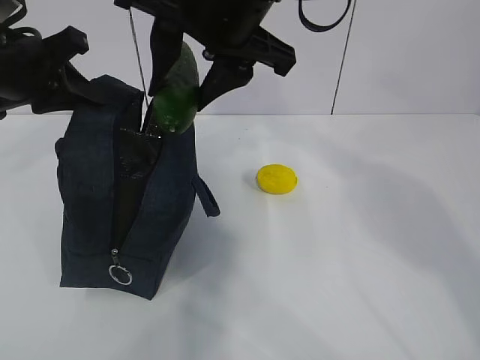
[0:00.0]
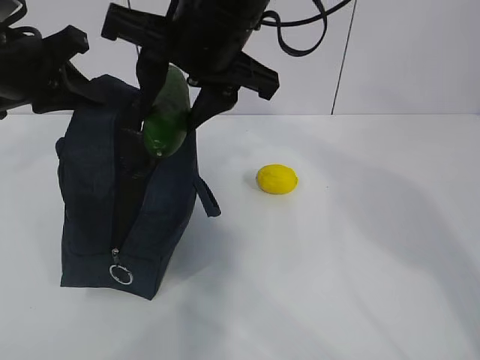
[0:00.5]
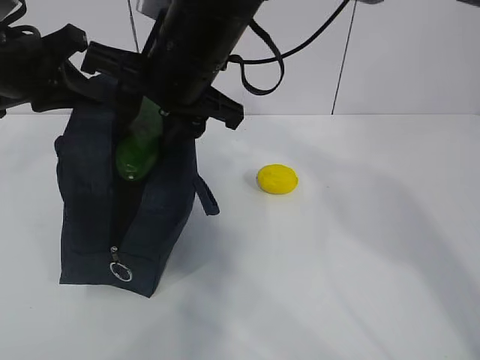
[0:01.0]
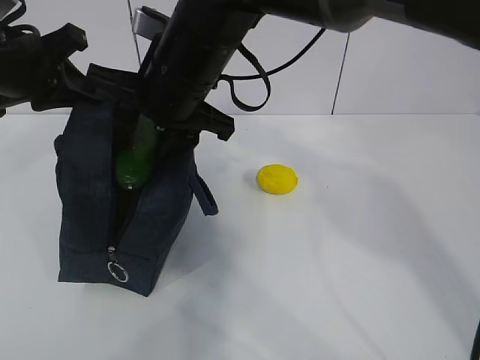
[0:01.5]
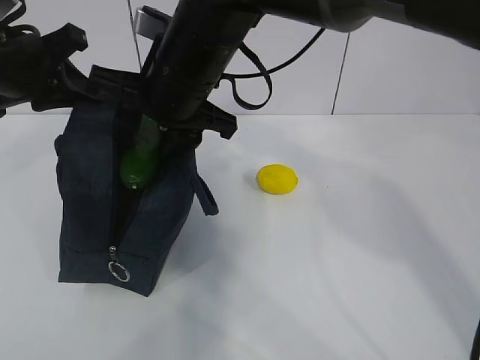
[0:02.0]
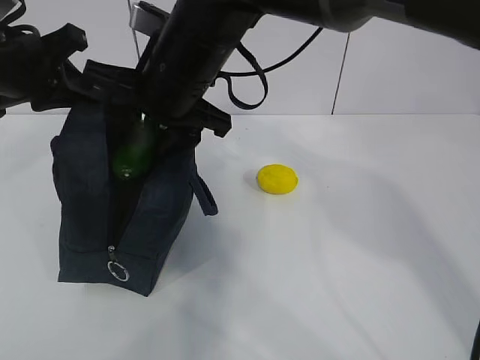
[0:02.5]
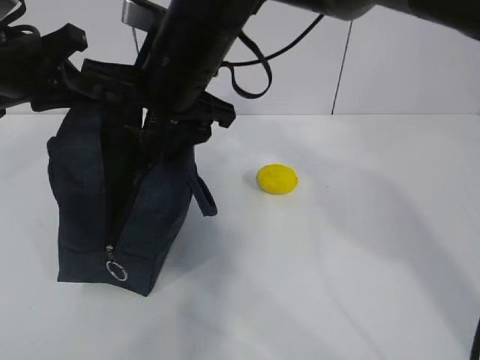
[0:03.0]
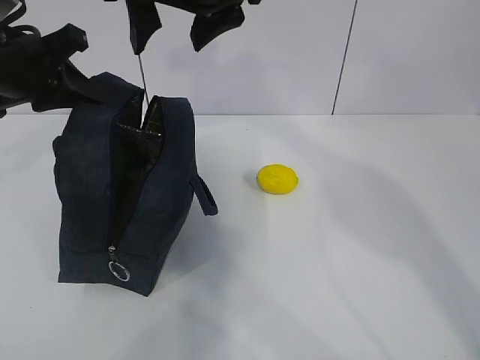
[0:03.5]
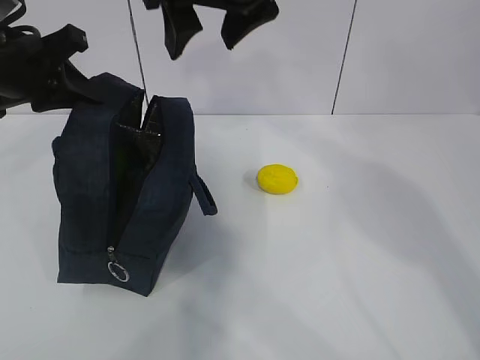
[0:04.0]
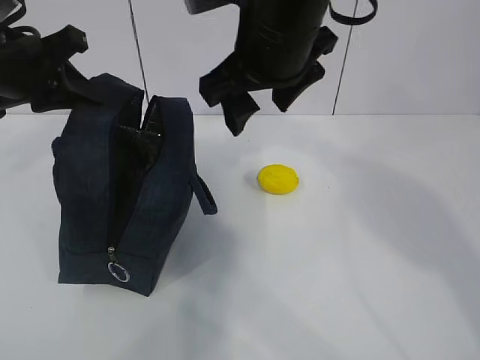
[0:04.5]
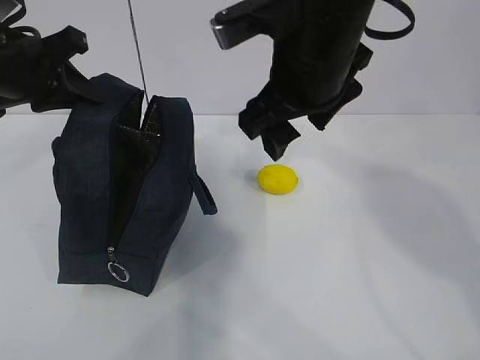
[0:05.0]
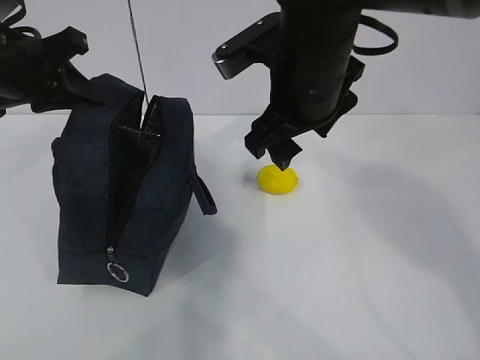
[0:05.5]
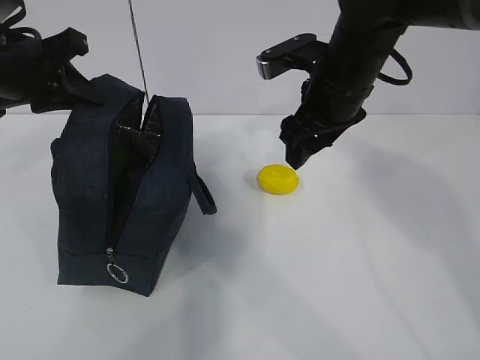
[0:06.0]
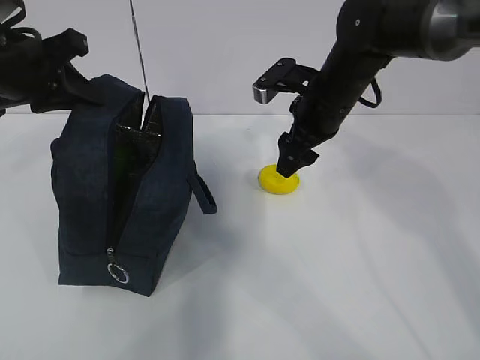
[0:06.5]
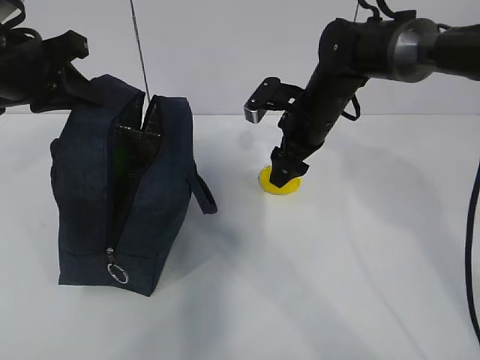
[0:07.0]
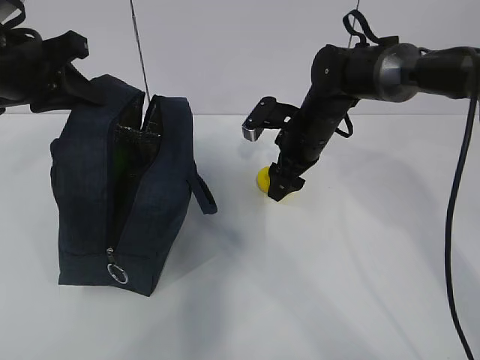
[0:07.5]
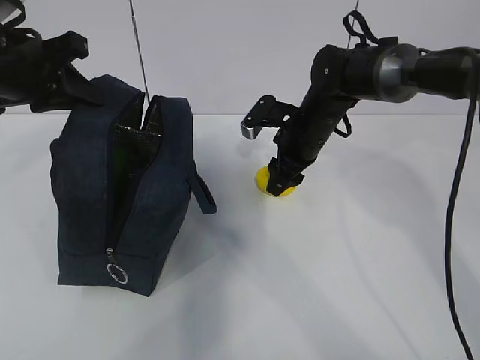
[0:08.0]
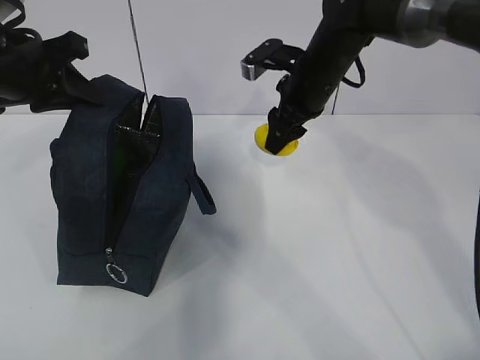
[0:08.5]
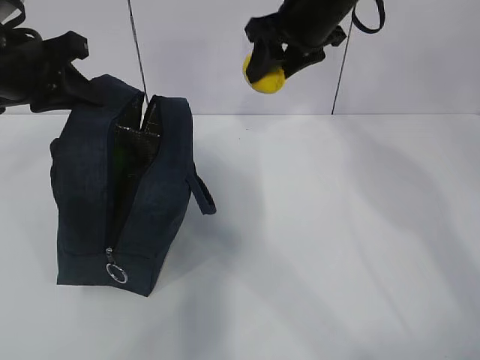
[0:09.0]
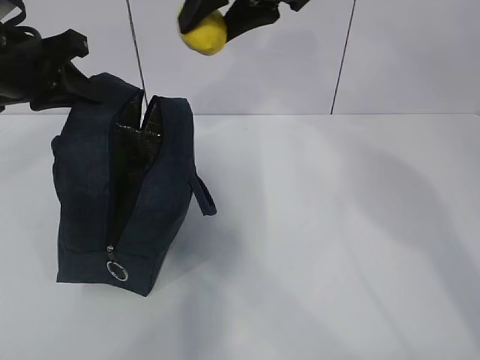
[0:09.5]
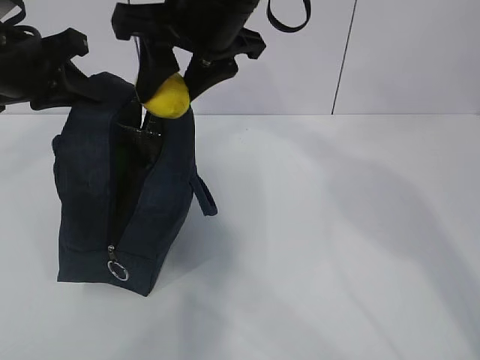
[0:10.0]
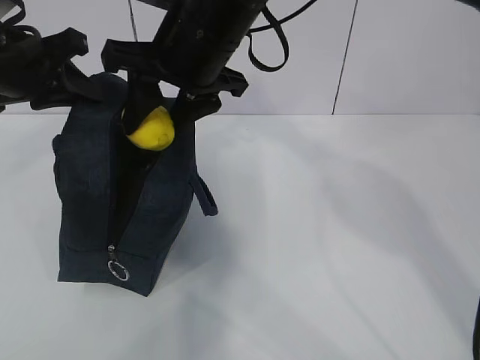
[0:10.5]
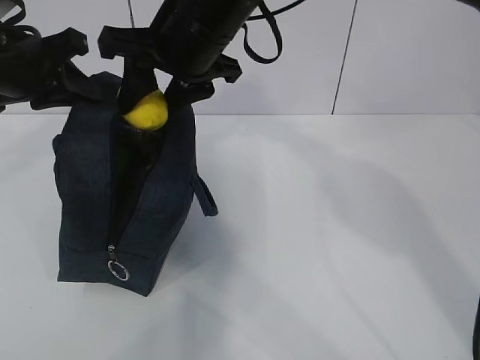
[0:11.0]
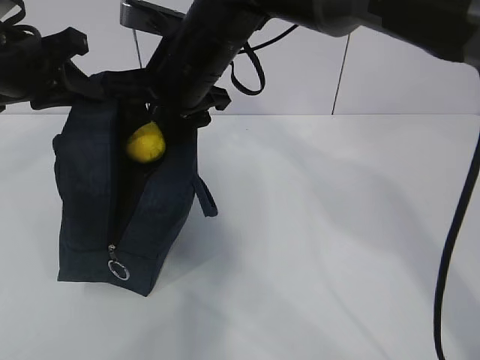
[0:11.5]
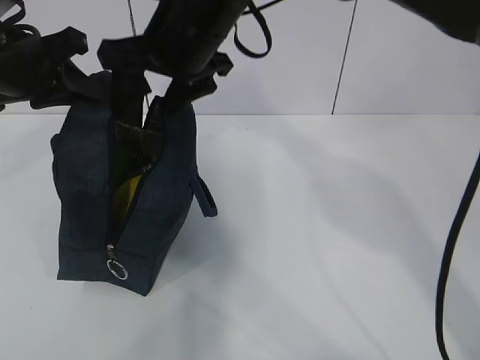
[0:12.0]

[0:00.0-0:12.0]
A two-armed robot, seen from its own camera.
Step, 0:05.0 to 0:08.0: Grab the lunch bag with your right hand.
Step, 0:08.5 to 0:10.0: Move the lunch bag to the right.
0:00.0 to 0:02.0: The right gripper shifts some 10 cm downward.
0:02.0 to 0:04.0: The right gripper is displaced upward and to the right by roughly 10 cm, and opens up.
0:04.0 to 0:06.0: The right gripper moves downward and to the right, approximately 15 cm.
0:06.0 to 0:08.0: The right gripper travels downward and forward by roughly 15 cm.
0:08.0 to 0:10.0: The right gripper moves upward, to the left and backward, about 25 cm.

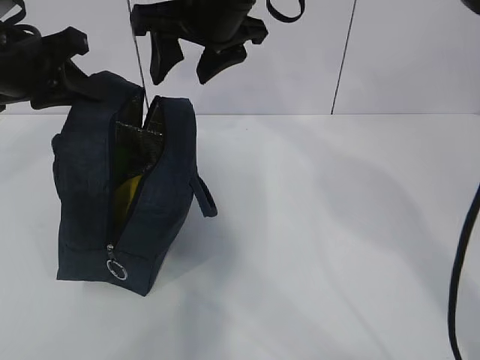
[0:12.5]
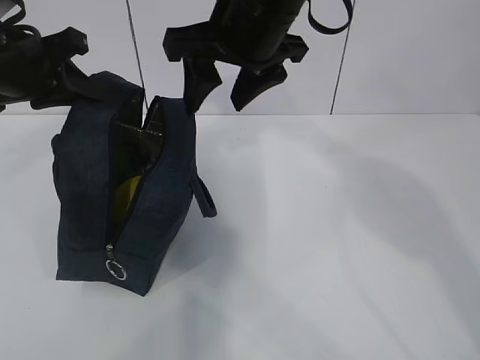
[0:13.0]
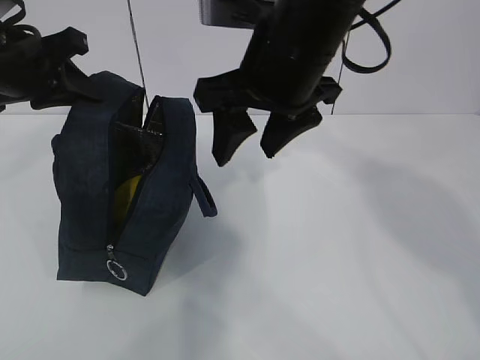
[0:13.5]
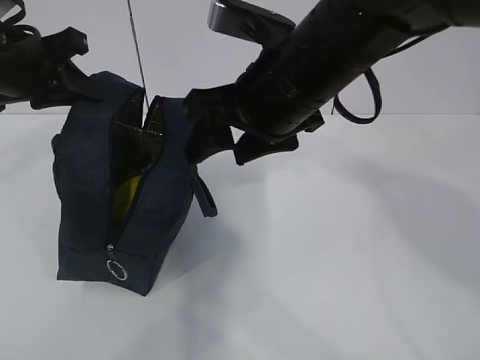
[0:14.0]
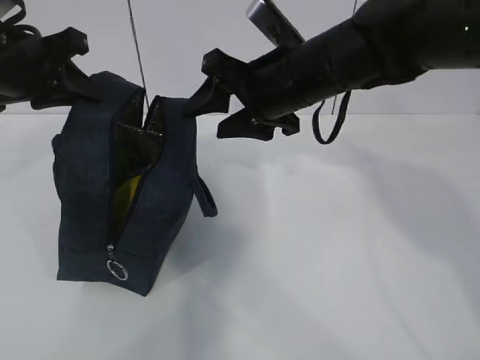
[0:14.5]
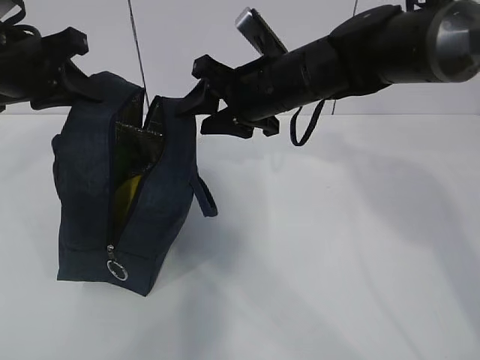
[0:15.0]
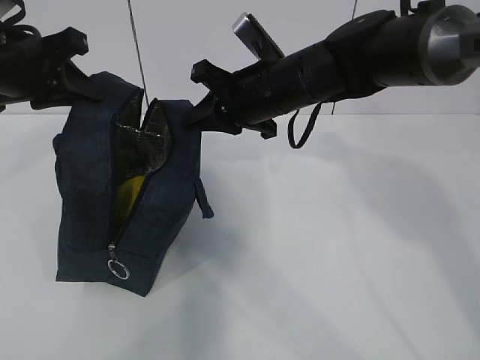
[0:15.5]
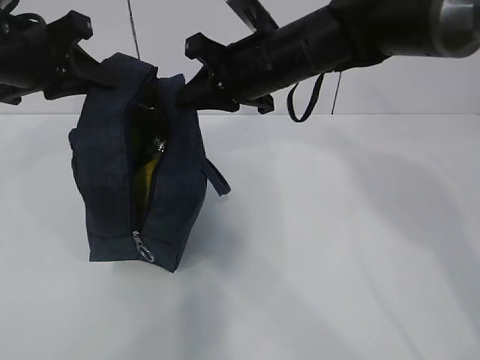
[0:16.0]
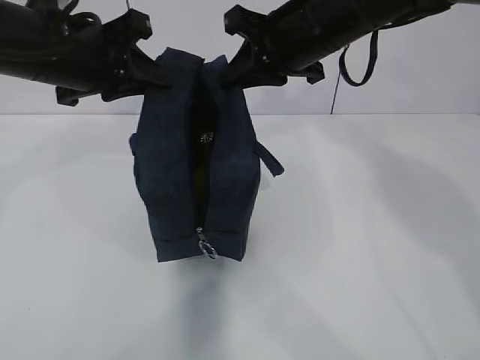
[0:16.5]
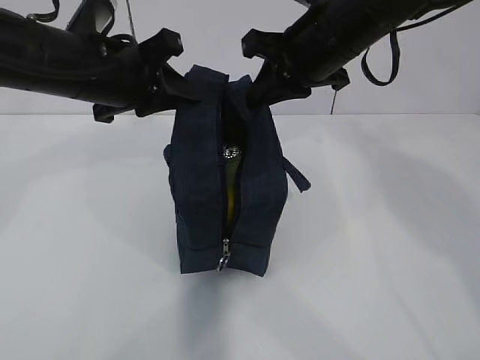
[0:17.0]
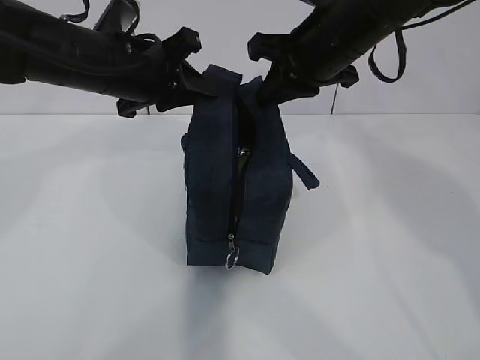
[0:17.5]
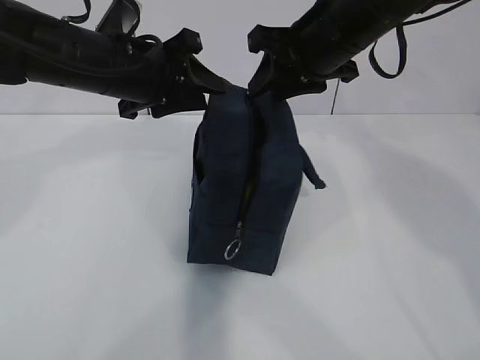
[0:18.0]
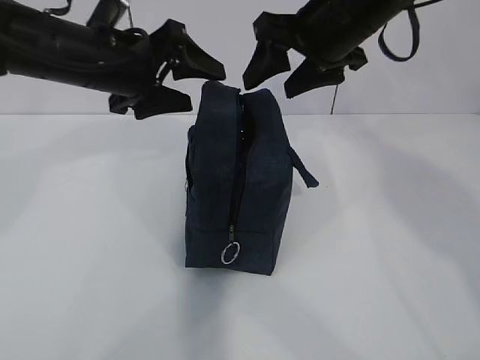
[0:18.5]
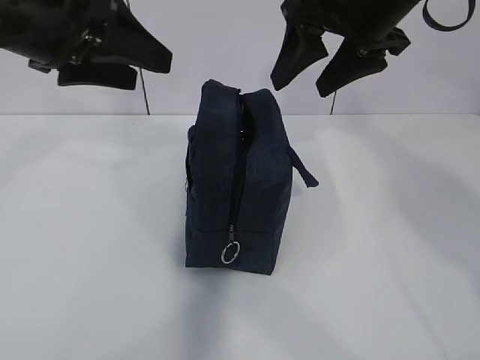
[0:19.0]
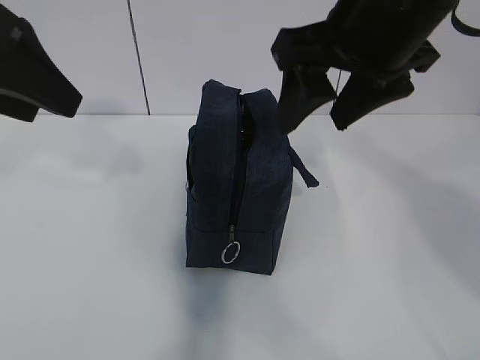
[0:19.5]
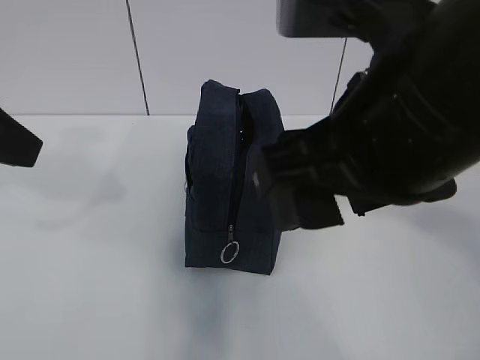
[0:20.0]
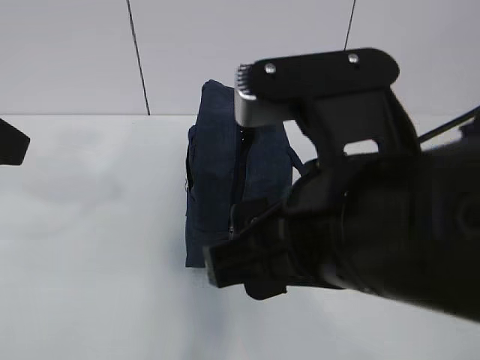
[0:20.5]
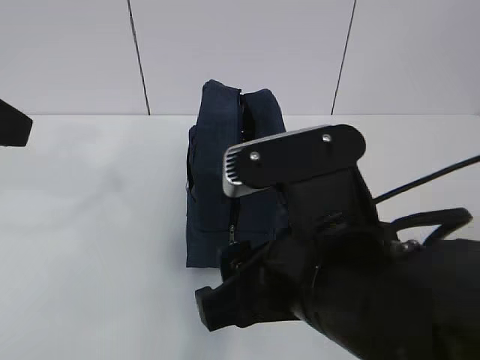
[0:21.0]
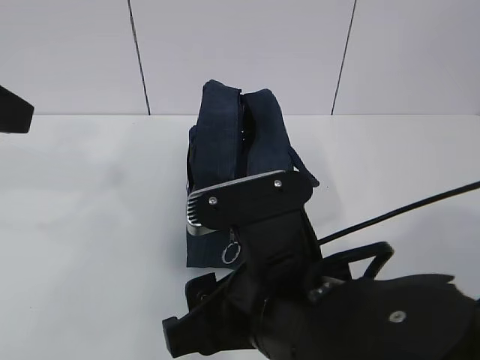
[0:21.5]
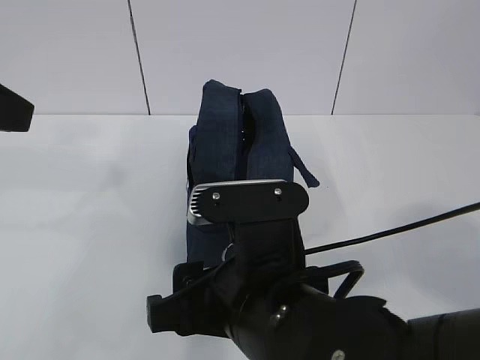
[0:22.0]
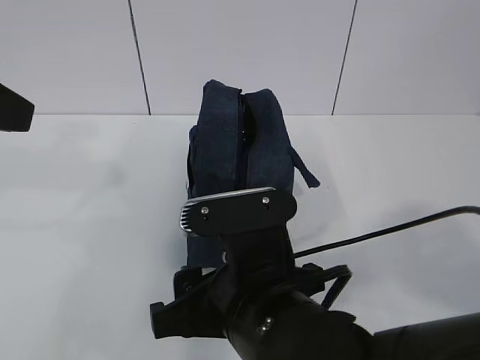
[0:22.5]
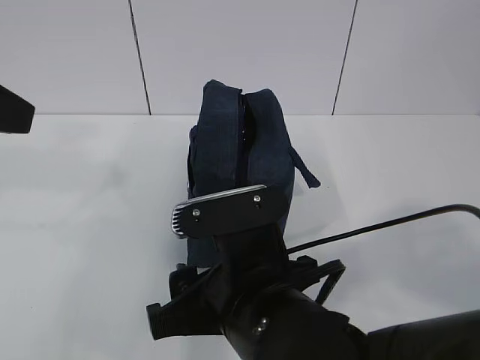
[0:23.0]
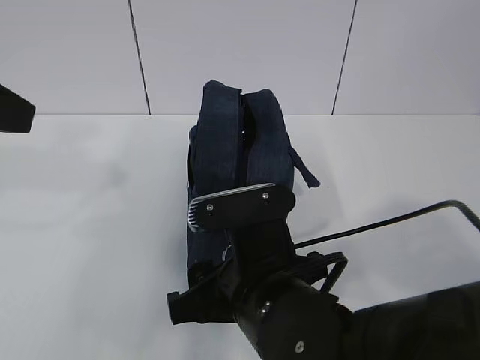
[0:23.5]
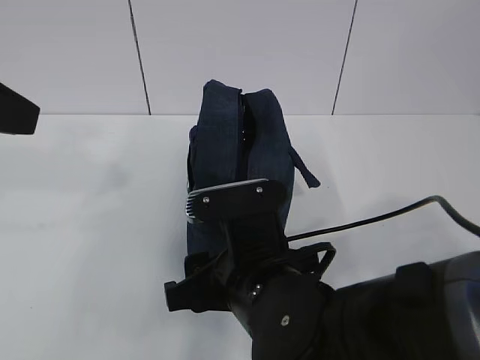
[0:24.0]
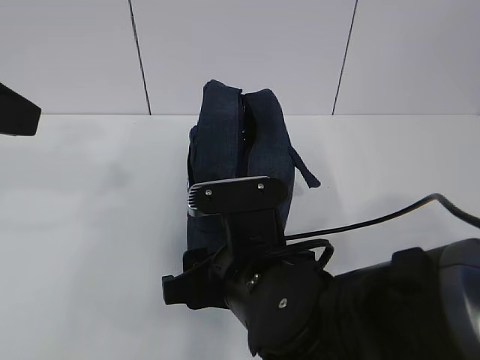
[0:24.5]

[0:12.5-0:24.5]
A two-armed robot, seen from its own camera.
0:12.5 to 0:14.5: The right gripper travels downward and to the right by some 10 cm, and reaches about 10 cm backward, then returns.
0:14.5 to 0:16.5: The left gripper goes some 5 cm to the right, while the right gripper changes place by approximately 5 cm, and closes.
0:16.5 to 0:18.5: The left gripper changes place by roughly 5 cm, and opens, while the right gripper opens.
0:18.5 to 0:20.5: The left gripper heads backward, to the left and upward, covering approximately 25 cm. Meanwhile the right gripper goes approximately 25 cm backward.
0:20.5 to 0:22.5: The right gripper travels downward by roughly 10 cm.
0:22.5 to 0:24.5: The grippers stay close to where they were, moving slightly.

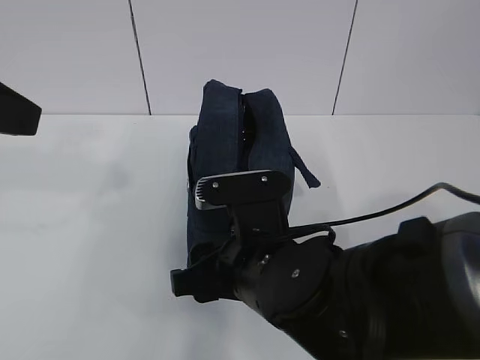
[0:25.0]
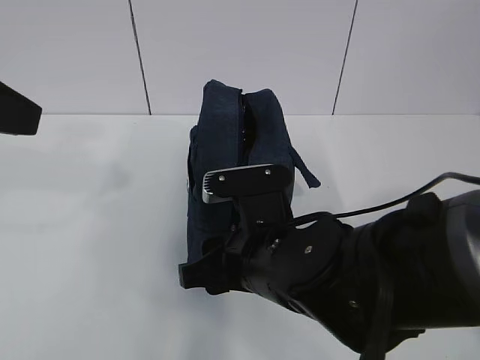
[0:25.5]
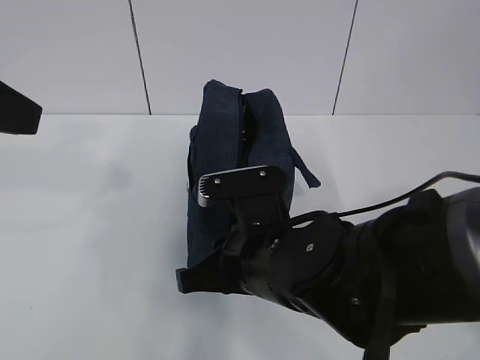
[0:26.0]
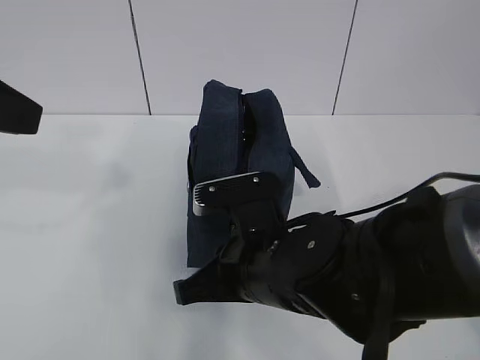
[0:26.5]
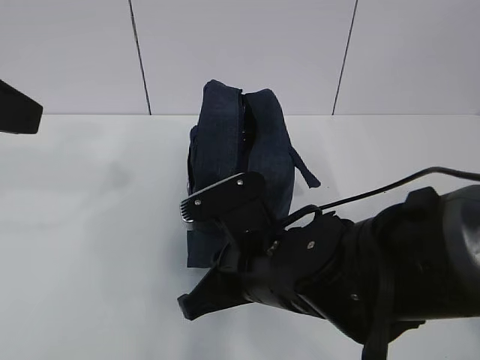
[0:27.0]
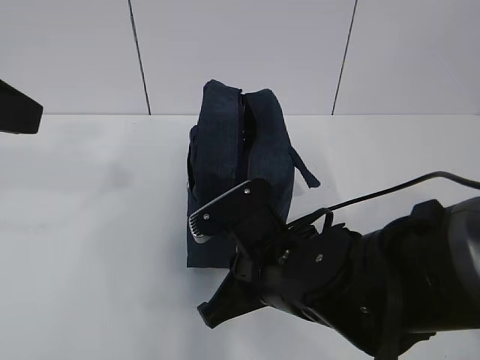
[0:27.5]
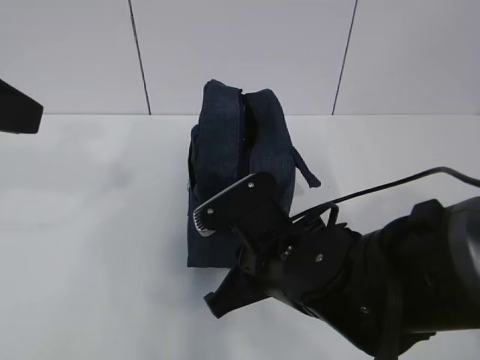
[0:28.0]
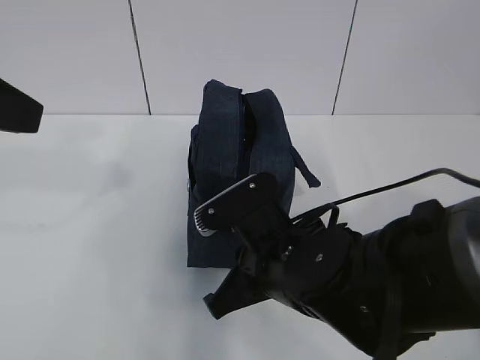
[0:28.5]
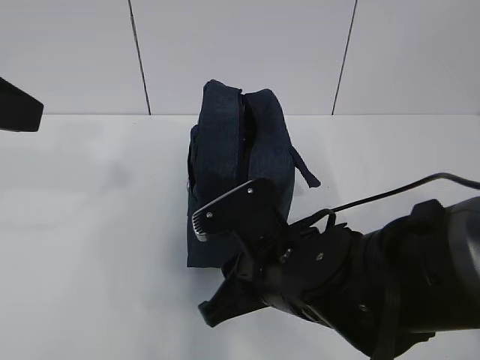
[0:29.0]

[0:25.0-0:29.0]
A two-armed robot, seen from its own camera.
0:25.0 to 0:27.0: The right gripper closes up.
0:27.0 to 0:29.0: The right gripper opens its fingers.
